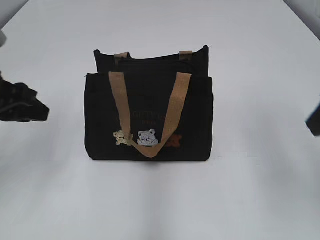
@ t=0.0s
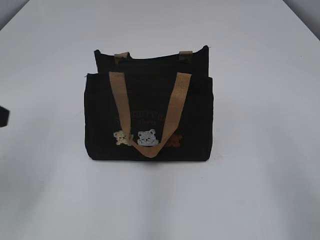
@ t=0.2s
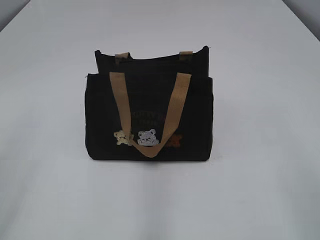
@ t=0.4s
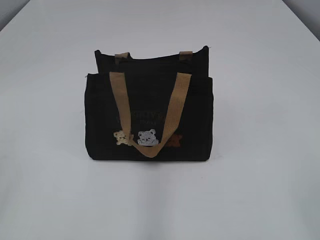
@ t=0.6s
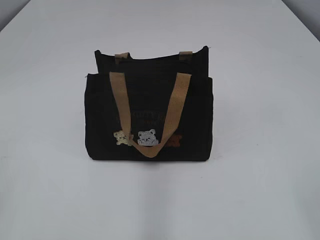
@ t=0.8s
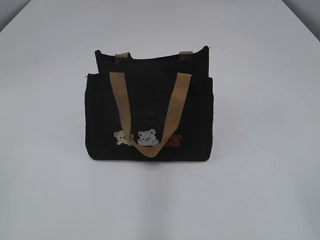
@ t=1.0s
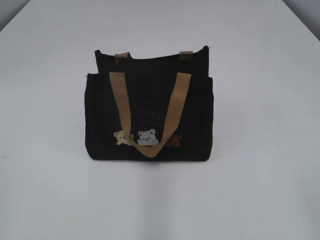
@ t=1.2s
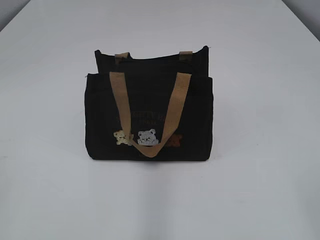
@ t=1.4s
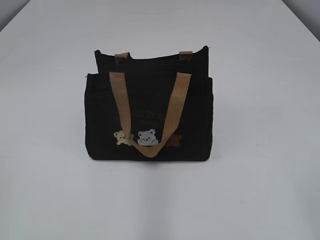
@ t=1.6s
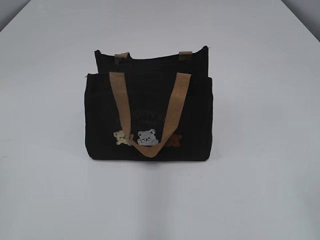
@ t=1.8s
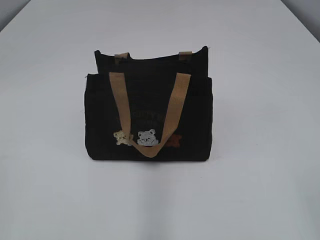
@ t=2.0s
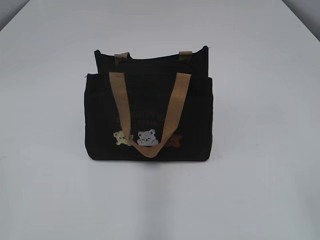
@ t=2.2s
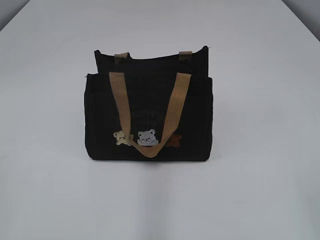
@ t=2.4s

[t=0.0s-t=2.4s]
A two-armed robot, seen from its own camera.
t=0.0s to t=1.2s: Both grippers travel together backward, some 25 cm.

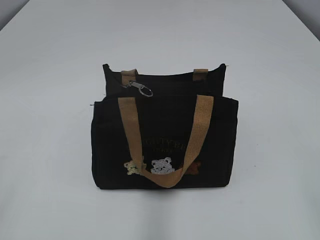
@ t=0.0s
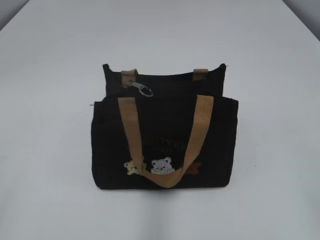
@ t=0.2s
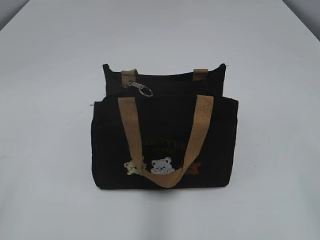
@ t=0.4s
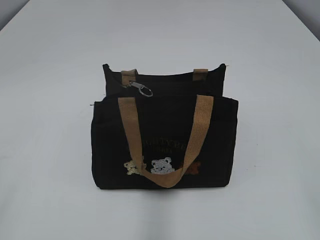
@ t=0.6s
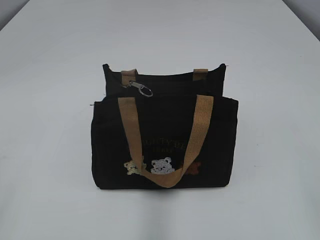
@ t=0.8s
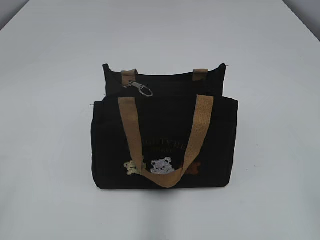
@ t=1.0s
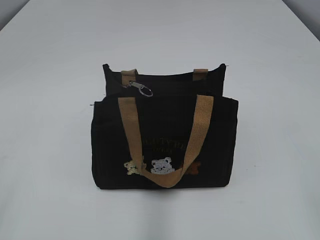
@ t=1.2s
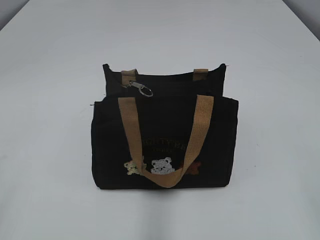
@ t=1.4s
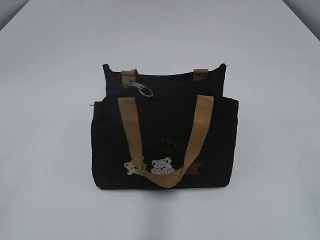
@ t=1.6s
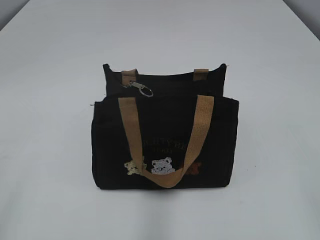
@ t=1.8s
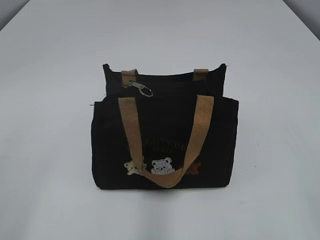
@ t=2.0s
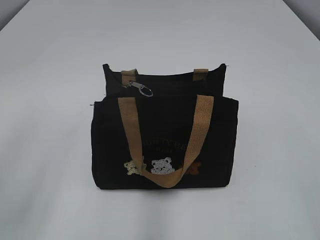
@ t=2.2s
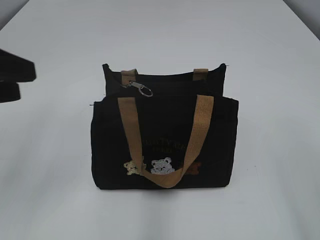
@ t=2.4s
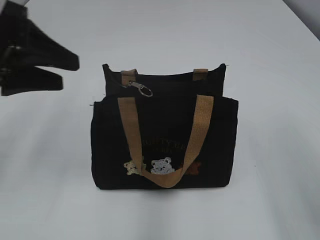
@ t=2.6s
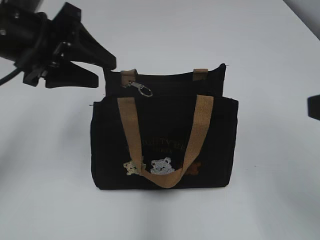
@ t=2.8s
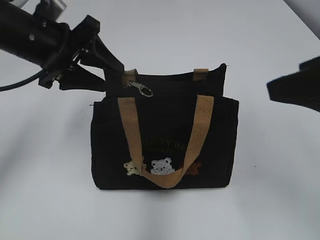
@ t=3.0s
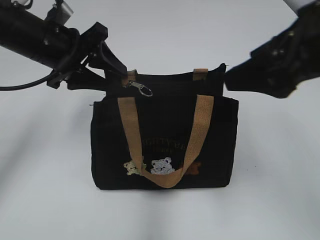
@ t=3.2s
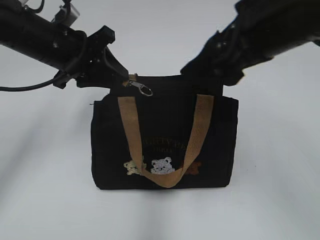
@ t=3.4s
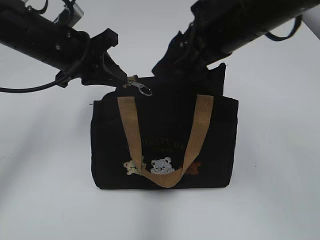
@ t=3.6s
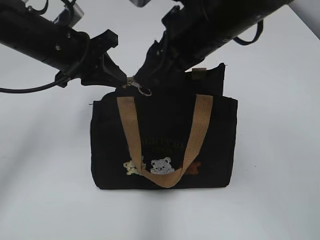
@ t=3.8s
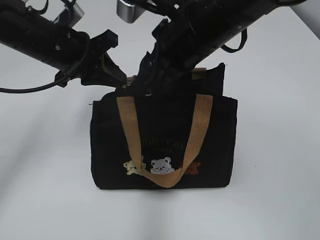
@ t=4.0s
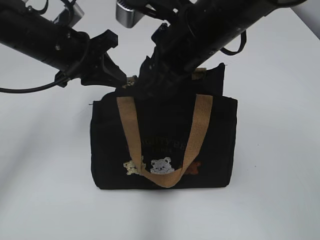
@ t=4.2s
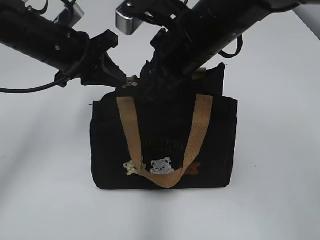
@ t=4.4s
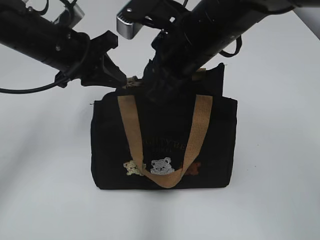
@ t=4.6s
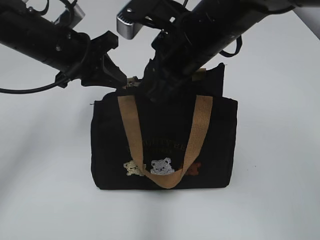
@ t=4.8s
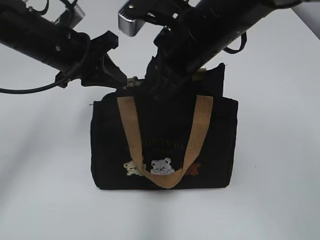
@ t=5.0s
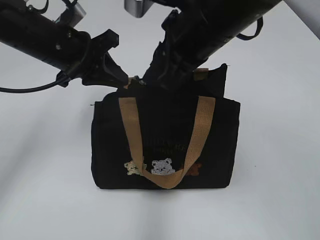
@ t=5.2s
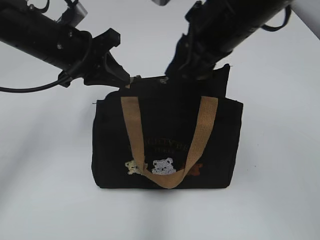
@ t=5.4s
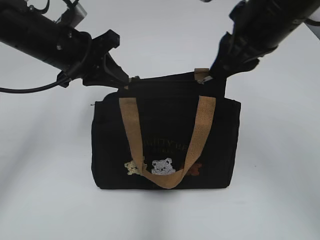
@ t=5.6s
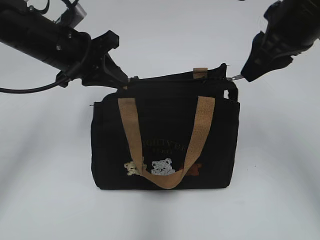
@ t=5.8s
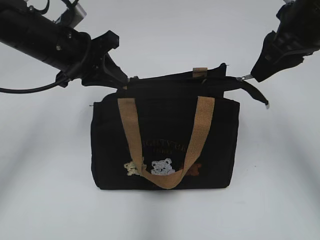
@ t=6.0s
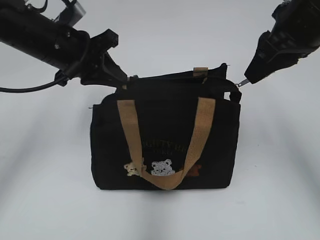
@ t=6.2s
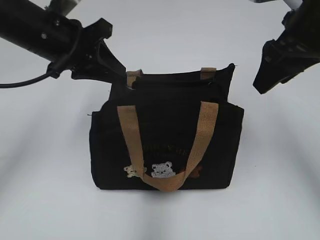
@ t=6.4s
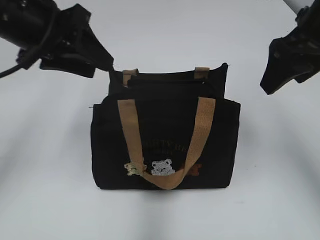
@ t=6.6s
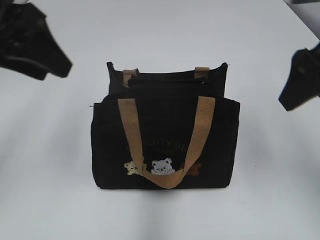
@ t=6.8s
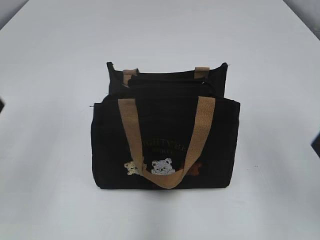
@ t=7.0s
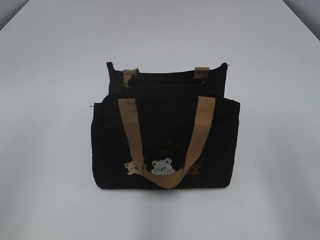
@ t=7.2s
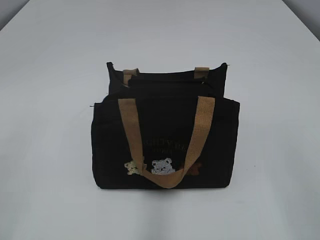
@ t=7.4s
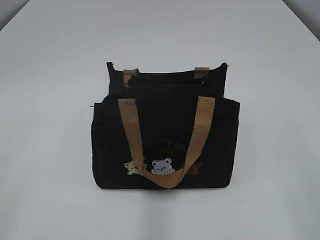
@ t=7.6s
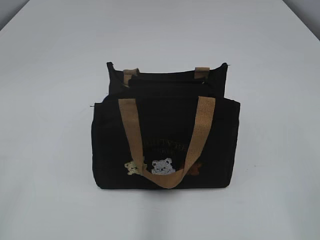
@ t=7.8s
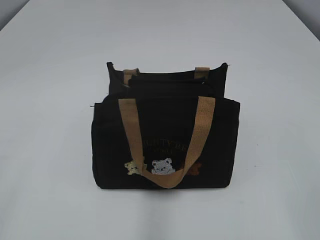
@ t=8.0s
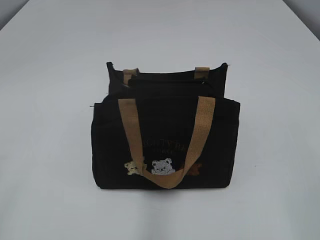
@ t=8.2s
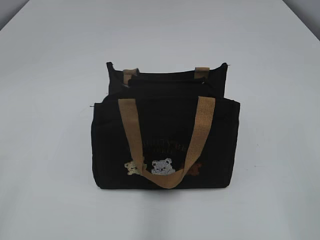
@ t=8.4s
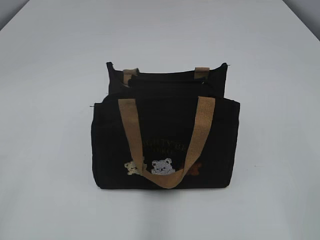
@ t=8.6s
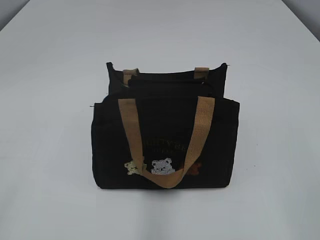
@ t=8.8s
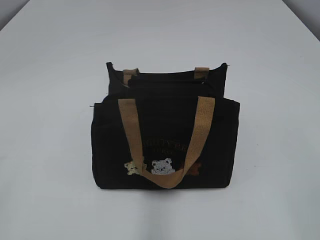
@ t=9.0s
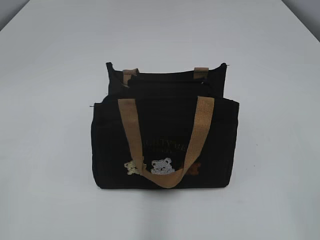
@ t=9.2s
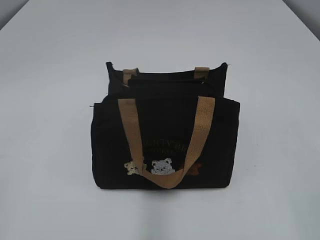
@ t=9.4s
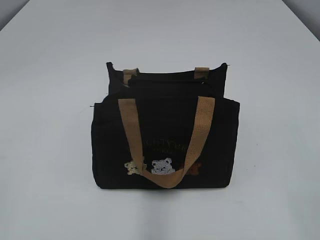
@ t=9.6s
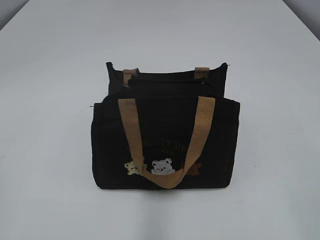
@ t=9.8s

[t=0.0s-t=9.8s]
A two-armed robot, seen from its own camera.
Step, t=0.0s to t=6.2s: Pull open the zipper with your right hand.
t=1.4s to t=2.8s: The right gripper moves forward, approximately 10 cm. The left gripper moves forward, approximately 25 cm.
t=2.8s to t=4.2s: The left gripper is displaced forward, downward and to the right by approximately 10 cm, and closes up. The right gripper shifts about 30 cm forward and to the left, and closes.
t=4.2s to t=5.6s: The right gripper shifts some 5 cm to the right, and closes.
t=5.6s to t=7.0s: The right gripper shifts approximately 15 cm to the right and backward, and opens. The left gripper heads backward, upward and to the left, covering some 15 cm, and opens.
t=7.0s to t=8.4s: The right gripper heads backward, covering approximately 20 cm. Meanwhile the left gripper moves backward and to the left, about 25 cm.
